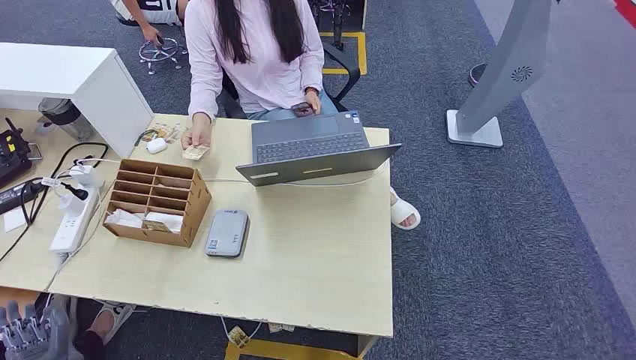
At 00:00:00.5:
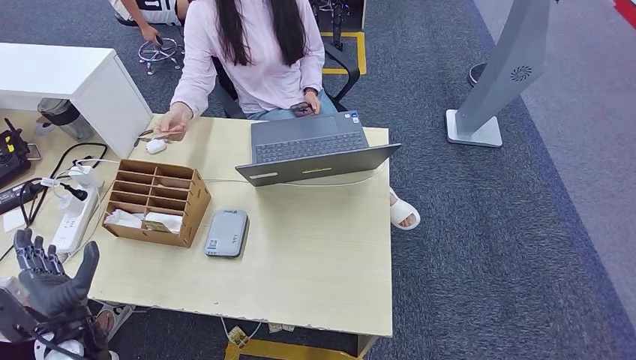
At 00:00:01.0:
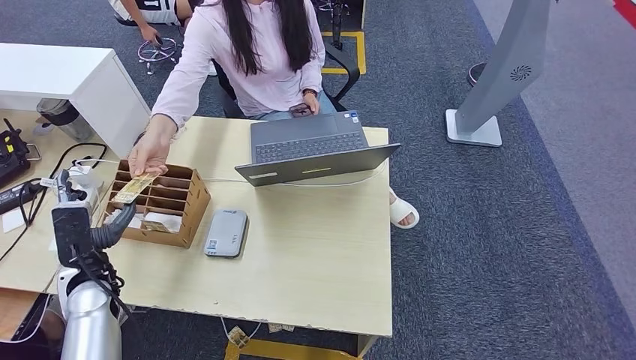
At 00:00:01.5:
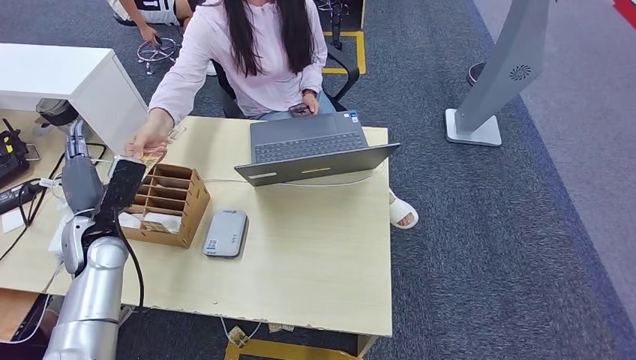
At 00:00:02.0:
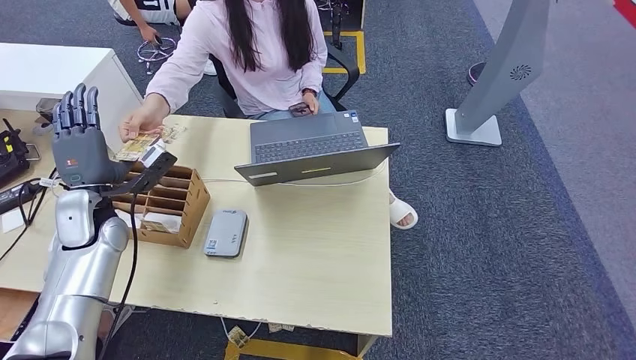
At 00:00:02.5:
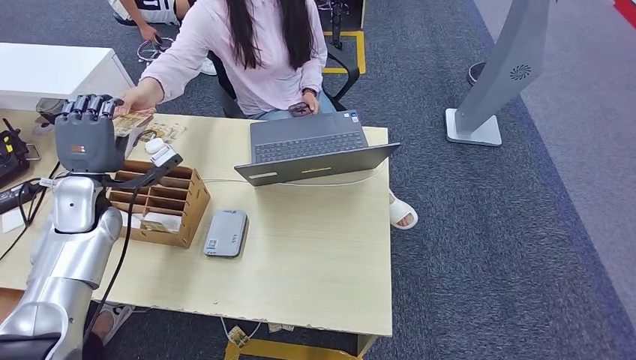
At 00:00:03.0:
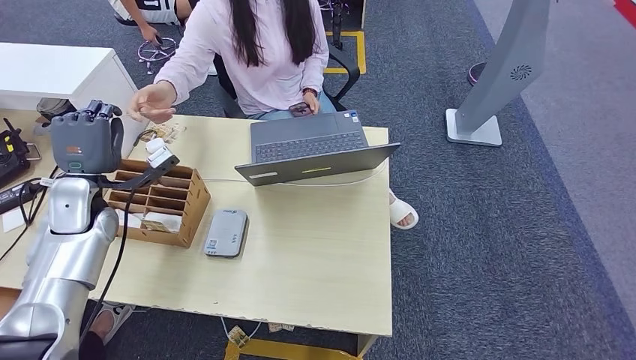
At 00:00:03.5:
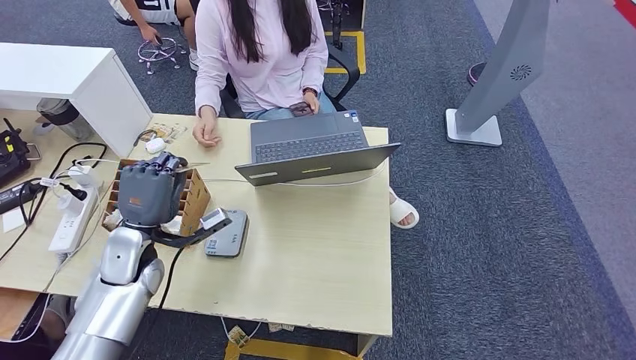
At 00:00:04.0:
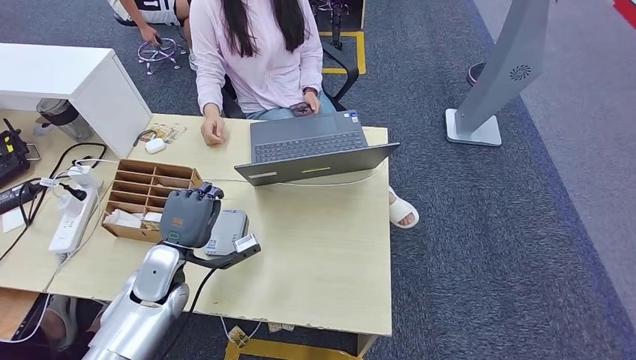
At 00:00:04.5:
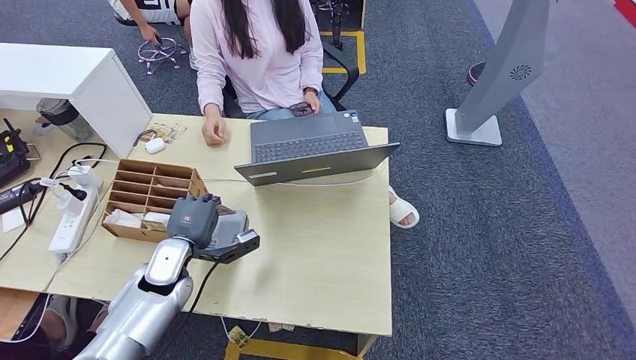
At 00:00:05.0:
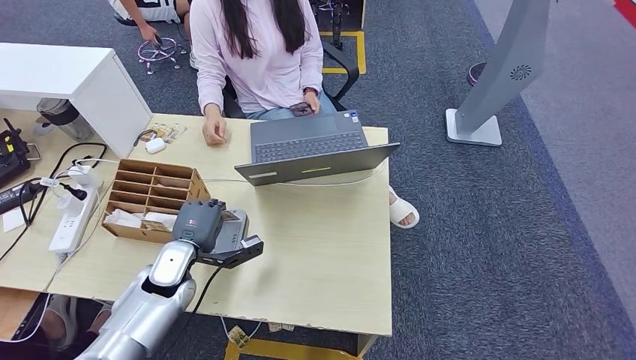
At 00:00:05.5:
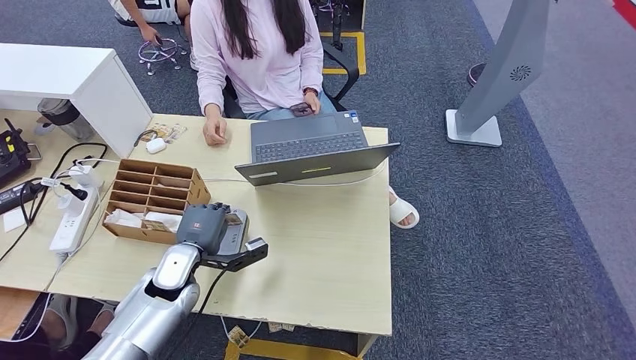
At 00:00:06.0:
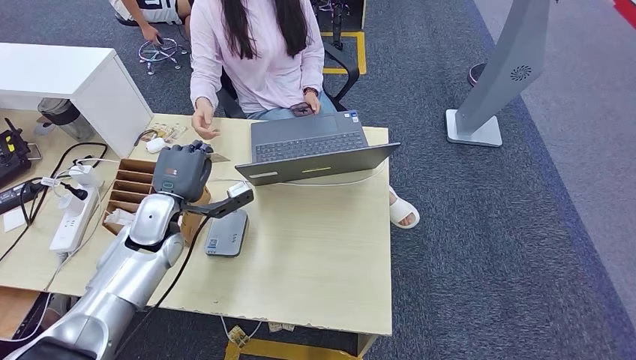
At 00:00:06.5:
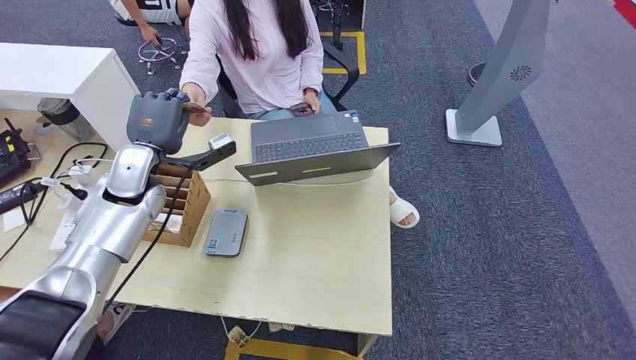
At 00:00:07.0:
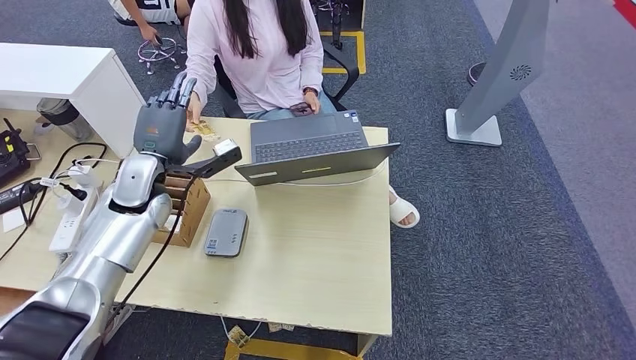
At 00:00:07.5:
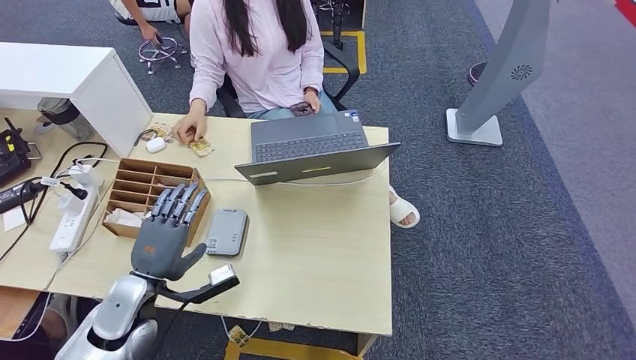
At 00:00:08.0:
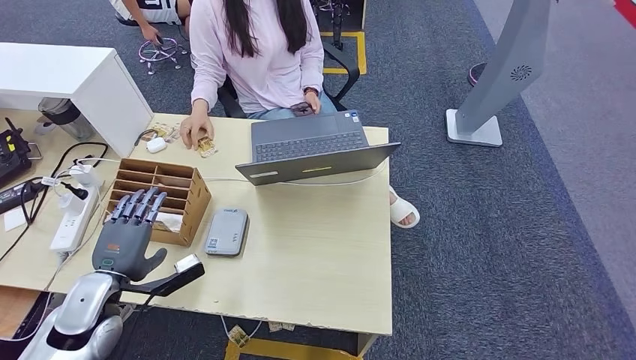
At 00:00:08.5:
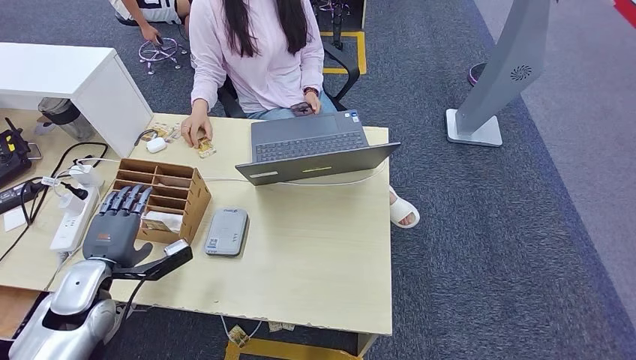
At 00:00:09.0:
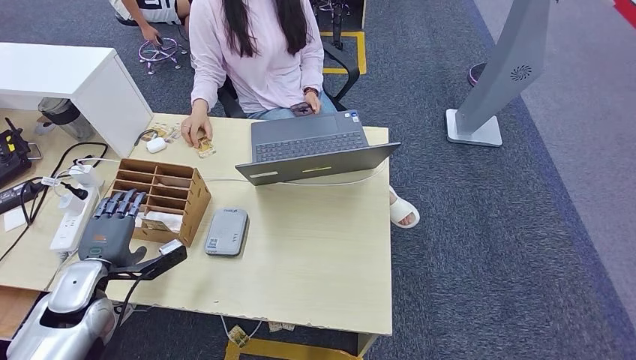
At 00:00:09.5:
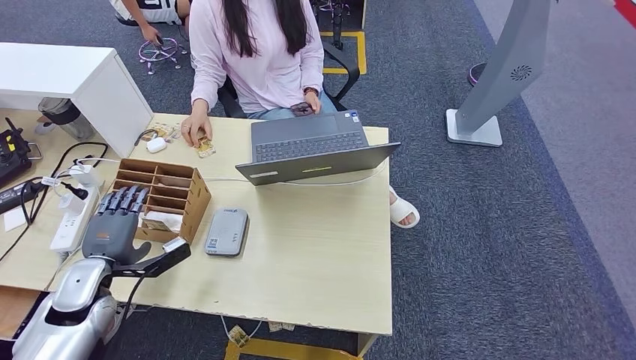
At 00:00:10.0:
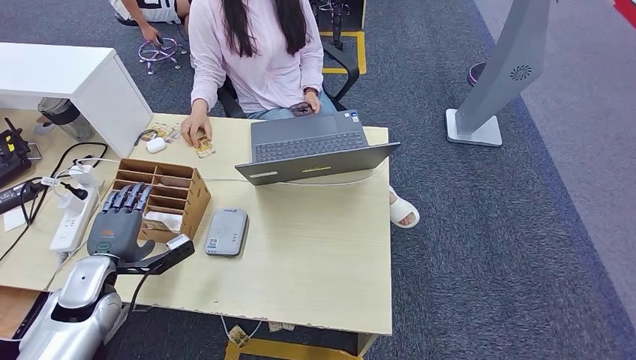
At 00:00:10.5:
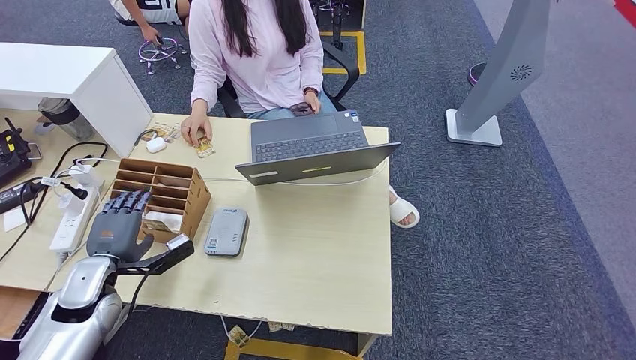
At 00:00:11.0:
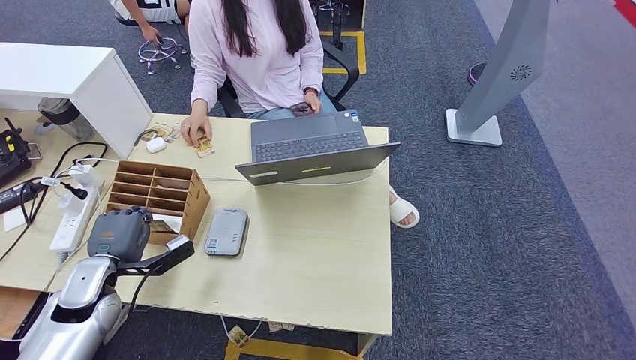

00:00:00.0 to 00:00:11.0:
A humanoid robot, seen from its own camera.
Step, 00:00:00.0 to 00:00:03.0: Take the ID card from the person's hand.
Step, 00:00:03.5 to 00:00:05.0: Place the ID card on the card reader.
Step, 00:00:05.5 to 00:00:07.0: Hand the ID card to the person.
00:00:02.0 to 00:00:03.5: The left hand travels to the right by some 5 cm.
00:00:03.5 to 00:00:05.5: The left hand shifts about 10 cm downward and to the right.
00:00:05.5 to 00:00:07.5: The left hand goes some 10 cm backward.
00:00:07.5 to 00:00:09.0: The left hand moves to the left, roughly 10 cm.
00:00:09.0 to 00:00:11.0: The hands stay close to where they were, moving slightly.

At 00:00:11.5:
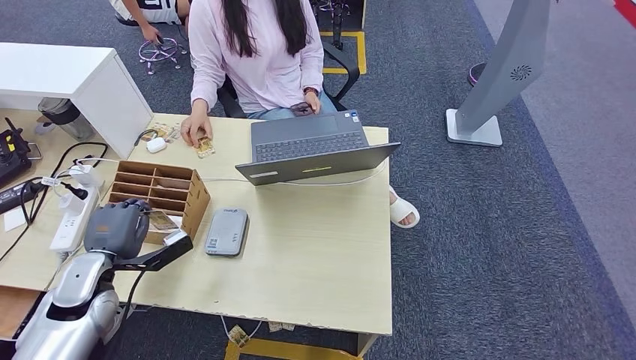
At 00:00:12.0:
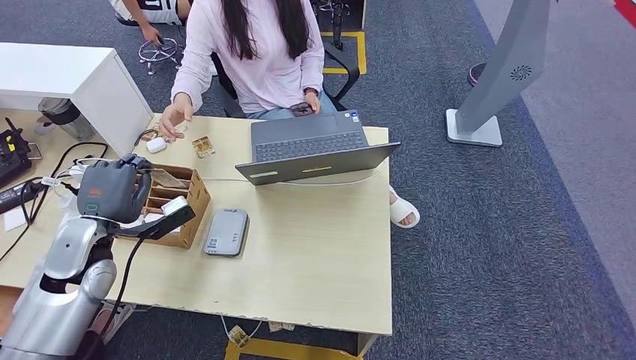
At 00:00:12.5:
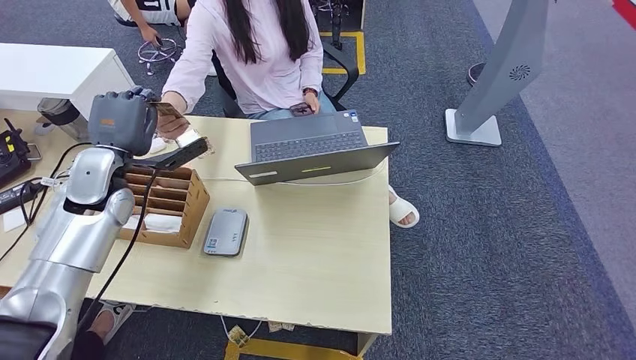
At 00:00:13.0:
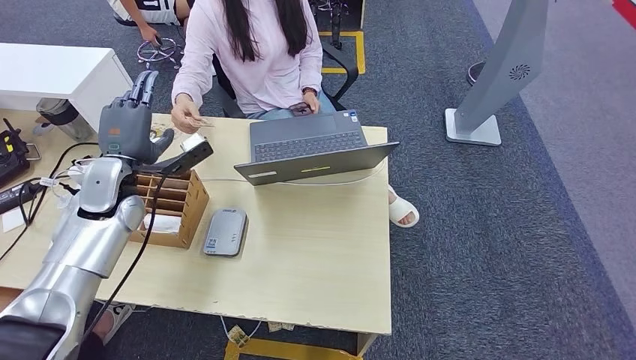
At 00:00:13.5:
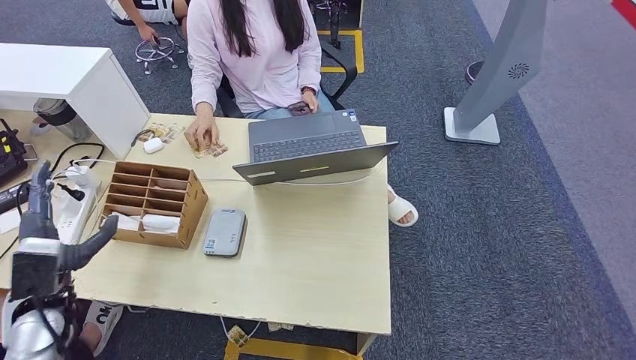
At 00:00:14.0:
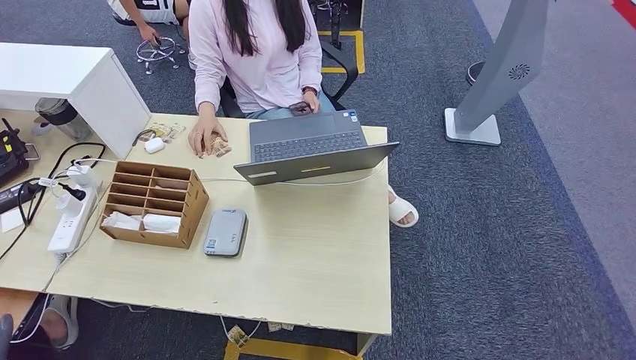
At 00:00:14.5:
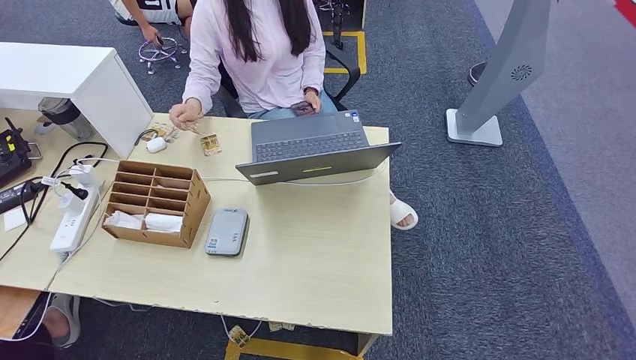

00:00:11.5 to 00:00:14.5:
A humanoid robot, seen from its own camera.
Step, 00:00:12.5 to 00:00:14.5: Hand the room key to the person.
00:00:11.5 to 00:00:13.0: The left hand travels forward and upward by roughly 15 cm.
00:00:13.0 to 00:00:14.5: The left hand goes roughly 50 cm backward and downward.

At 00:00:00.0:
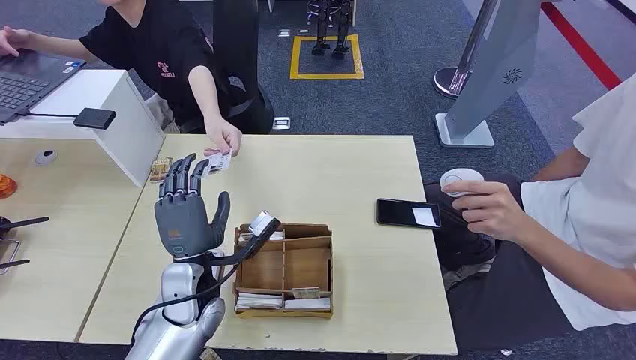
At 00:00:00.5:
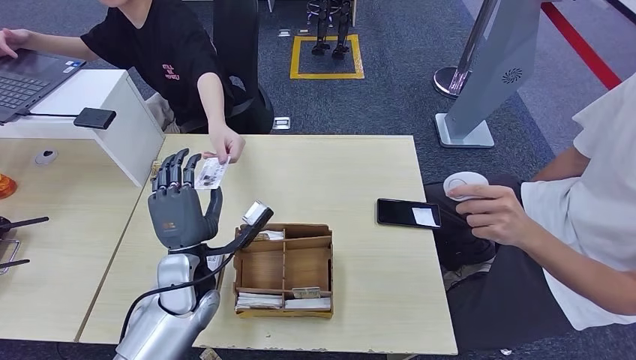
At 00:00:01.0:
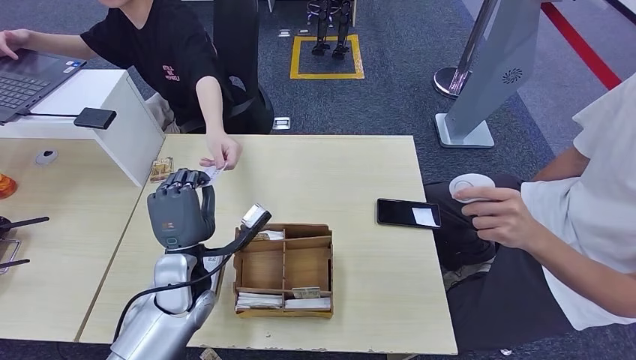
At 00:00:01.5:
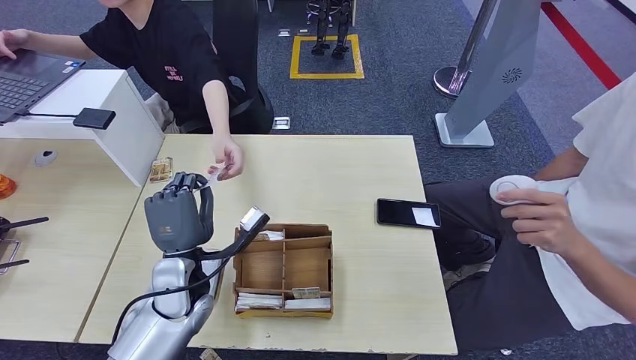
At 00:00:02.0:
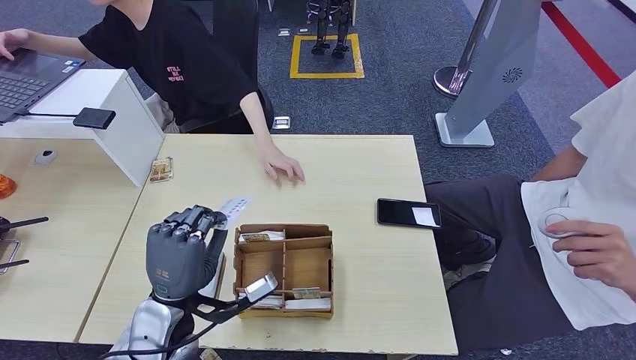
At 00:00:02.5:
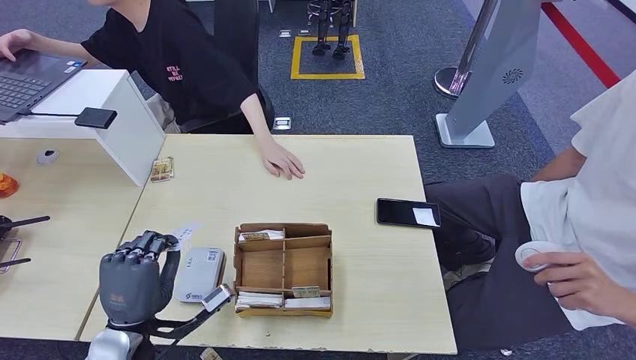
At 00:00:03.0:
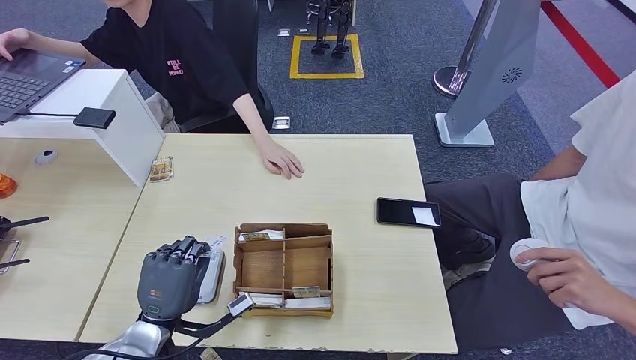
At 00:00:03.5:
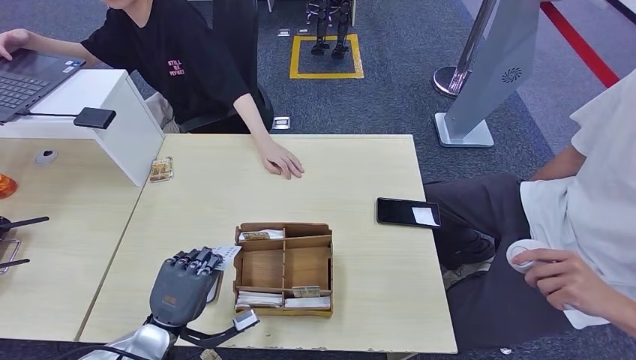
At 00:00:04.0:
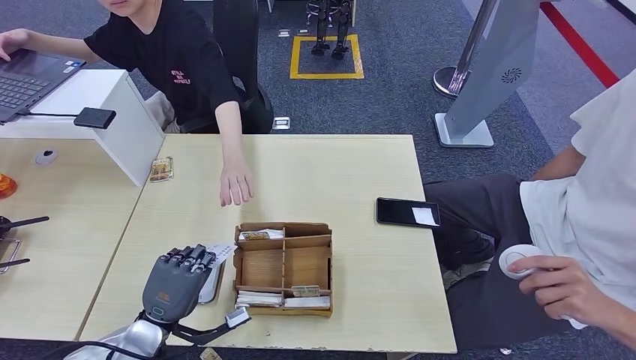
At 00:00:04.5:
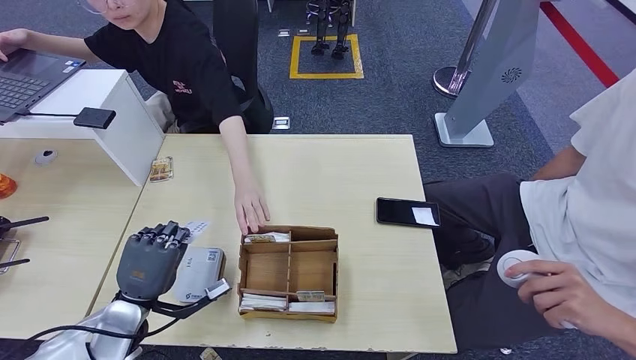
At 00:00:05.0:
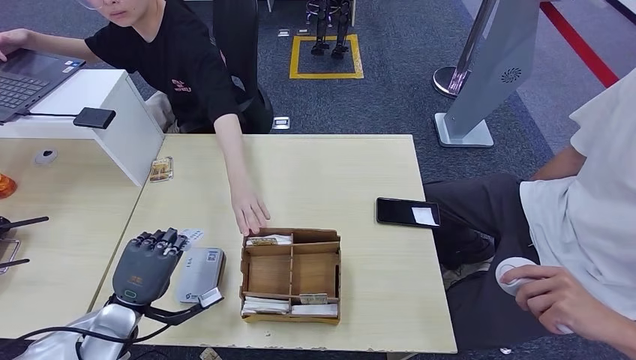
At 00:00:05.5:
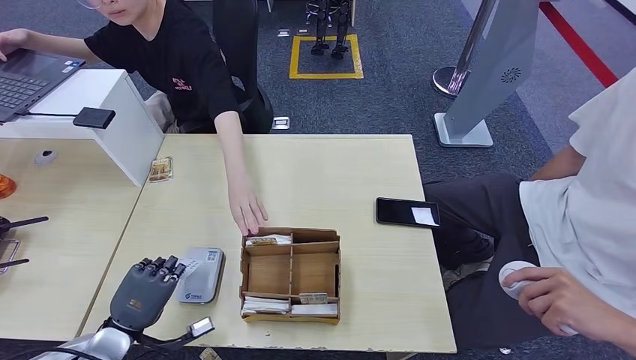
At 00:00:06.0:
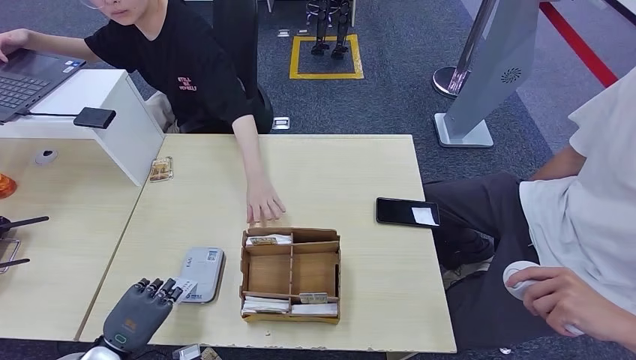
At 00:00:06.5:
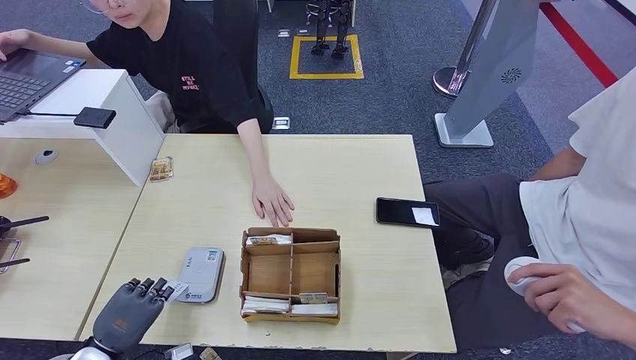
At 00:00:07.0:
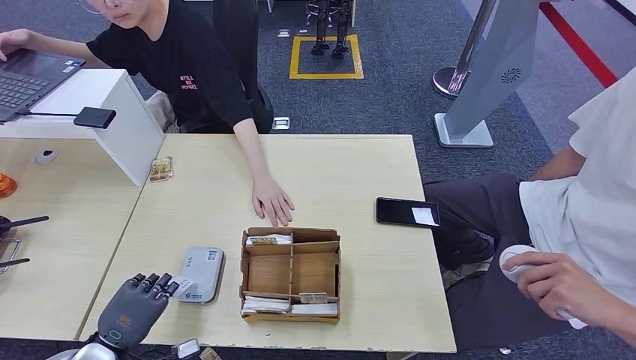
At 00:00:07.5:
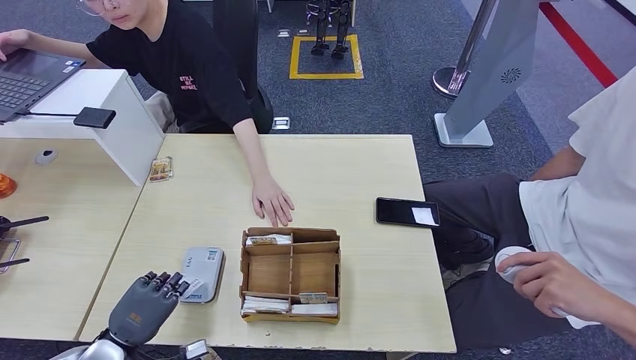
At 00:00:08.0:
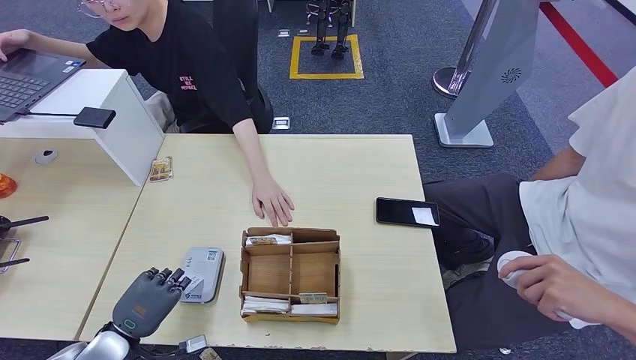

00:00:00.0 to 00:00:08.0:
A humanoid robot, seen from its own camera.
Step, 00:00:00.0 to 00:00:02.0: Take the ID card from the person's hand.
00:00:02.0 to 00:00:04.0: The left hand heads to the left and downward, covering about 10 cm.
00:00:04.0 to 00:00:06.0: The left hand shifts about 10 cm to the left.
00:00:06.0 to 00:00:08.0: There are only small adjustments of the hands.
